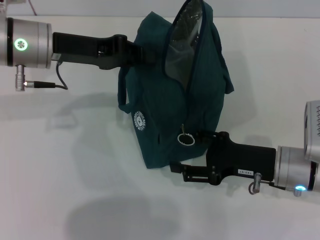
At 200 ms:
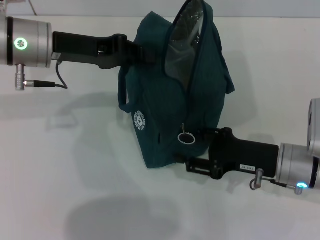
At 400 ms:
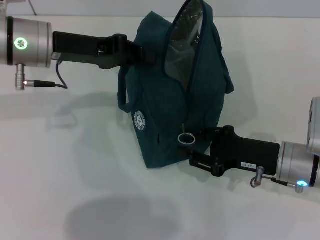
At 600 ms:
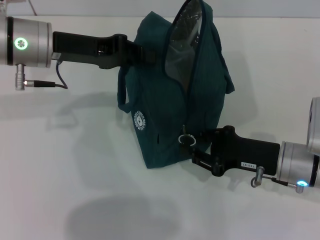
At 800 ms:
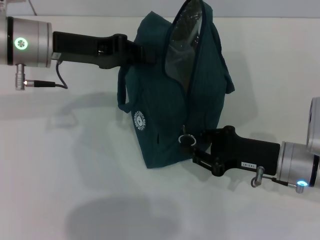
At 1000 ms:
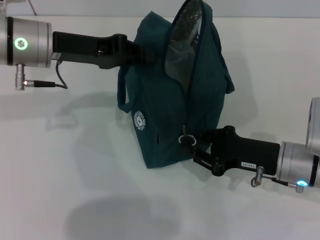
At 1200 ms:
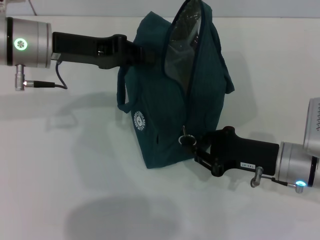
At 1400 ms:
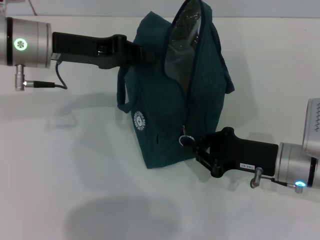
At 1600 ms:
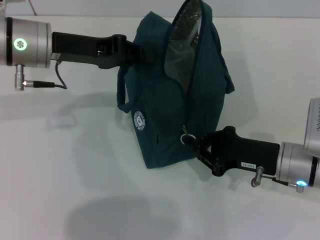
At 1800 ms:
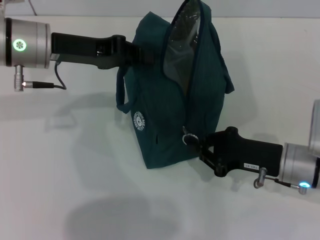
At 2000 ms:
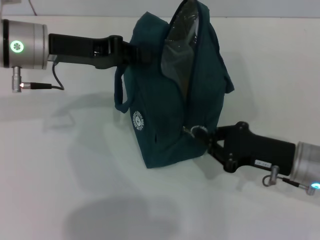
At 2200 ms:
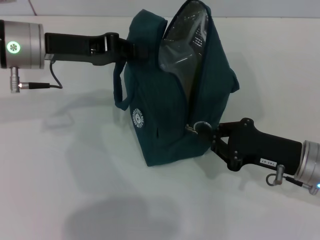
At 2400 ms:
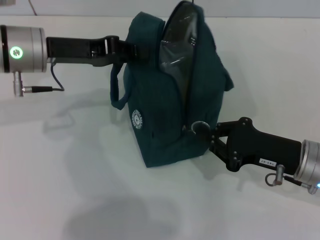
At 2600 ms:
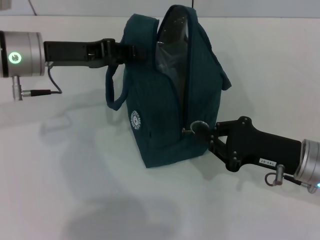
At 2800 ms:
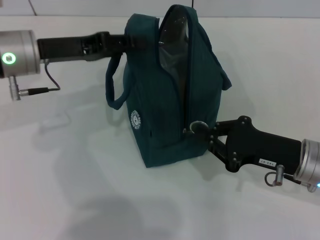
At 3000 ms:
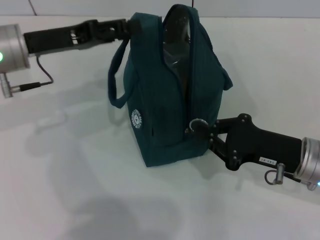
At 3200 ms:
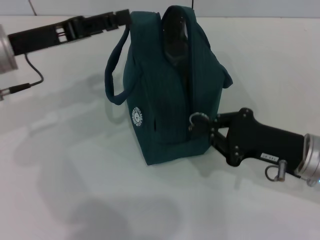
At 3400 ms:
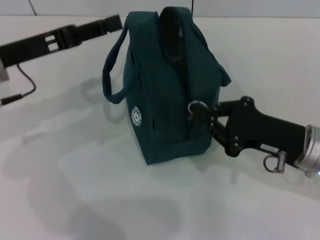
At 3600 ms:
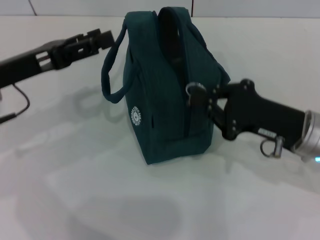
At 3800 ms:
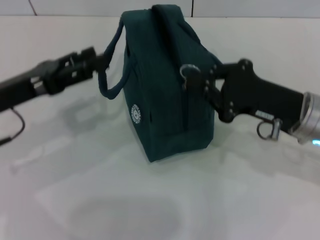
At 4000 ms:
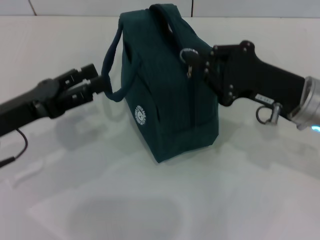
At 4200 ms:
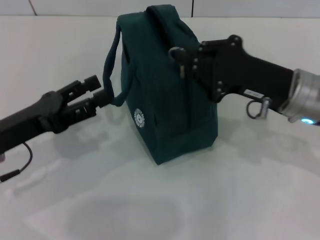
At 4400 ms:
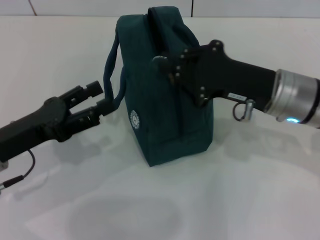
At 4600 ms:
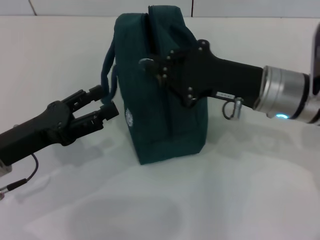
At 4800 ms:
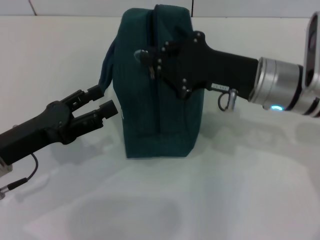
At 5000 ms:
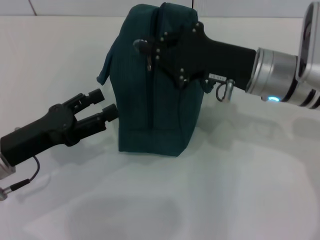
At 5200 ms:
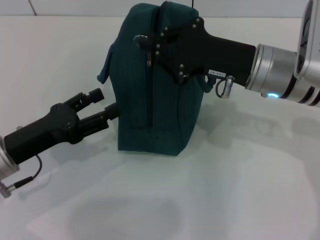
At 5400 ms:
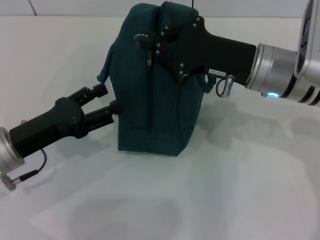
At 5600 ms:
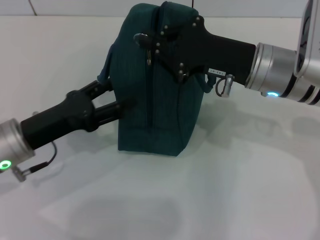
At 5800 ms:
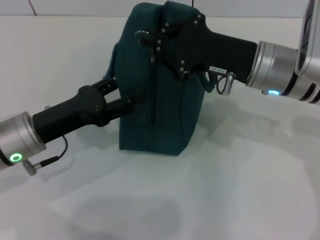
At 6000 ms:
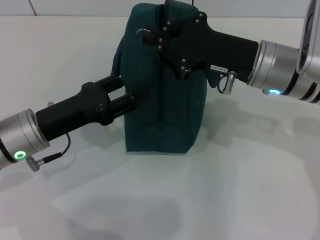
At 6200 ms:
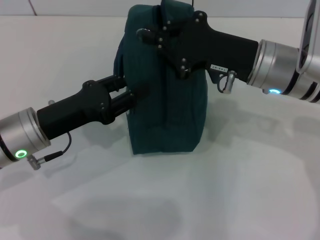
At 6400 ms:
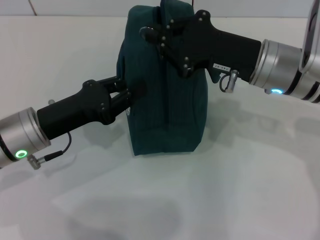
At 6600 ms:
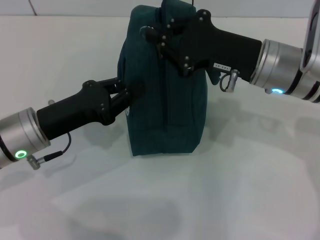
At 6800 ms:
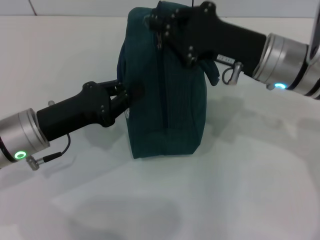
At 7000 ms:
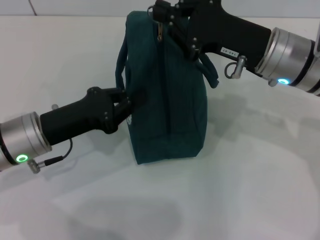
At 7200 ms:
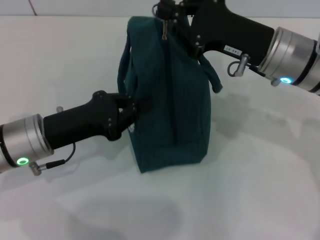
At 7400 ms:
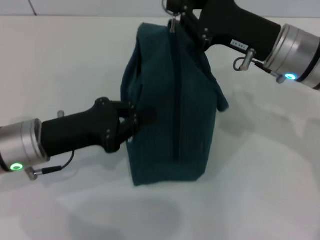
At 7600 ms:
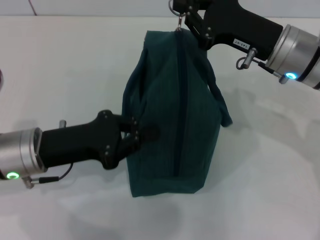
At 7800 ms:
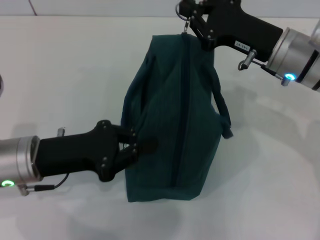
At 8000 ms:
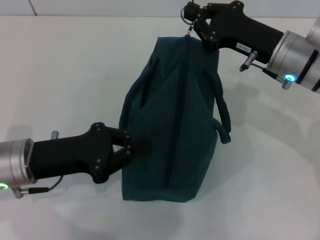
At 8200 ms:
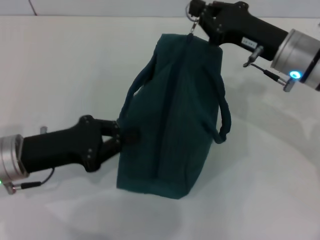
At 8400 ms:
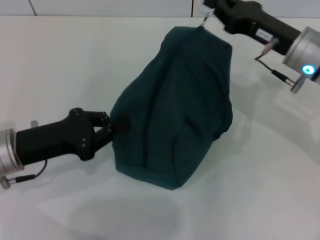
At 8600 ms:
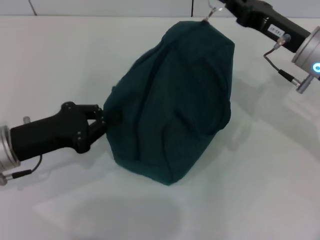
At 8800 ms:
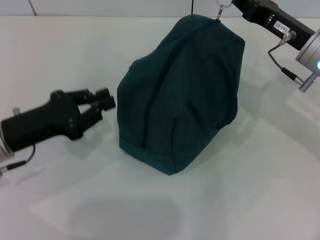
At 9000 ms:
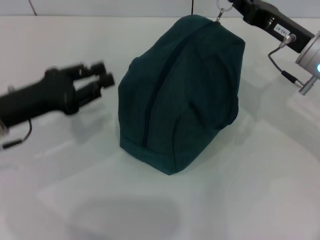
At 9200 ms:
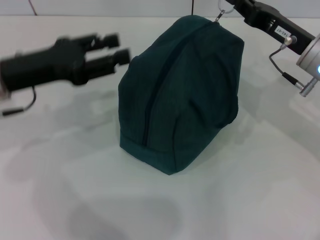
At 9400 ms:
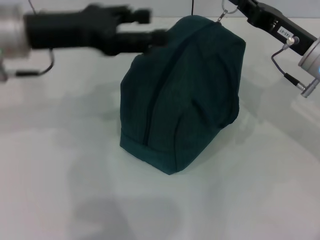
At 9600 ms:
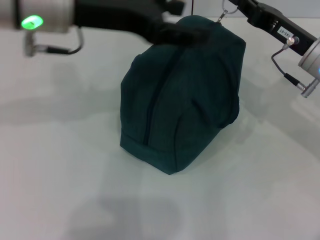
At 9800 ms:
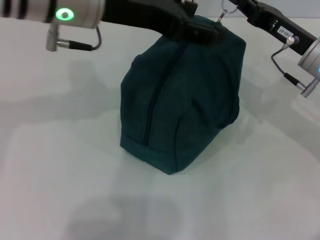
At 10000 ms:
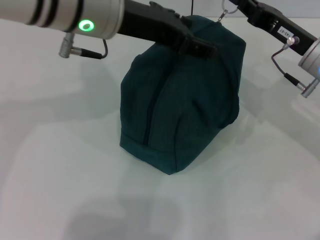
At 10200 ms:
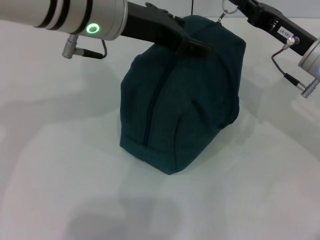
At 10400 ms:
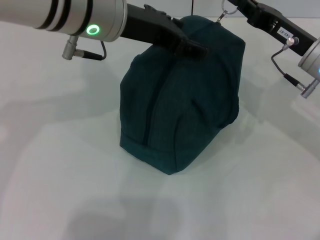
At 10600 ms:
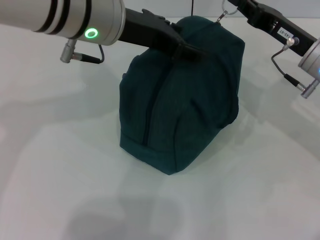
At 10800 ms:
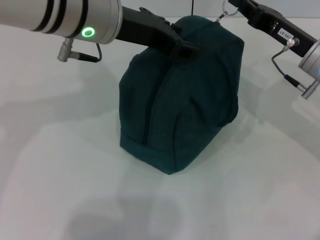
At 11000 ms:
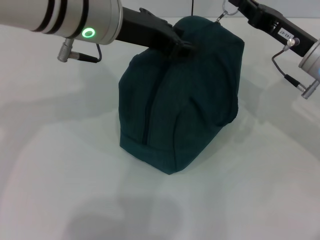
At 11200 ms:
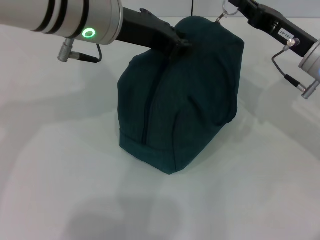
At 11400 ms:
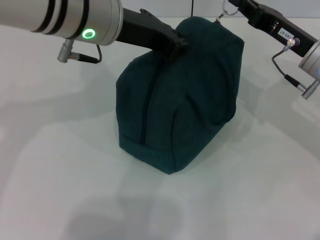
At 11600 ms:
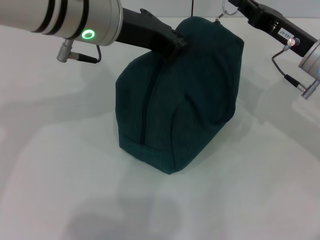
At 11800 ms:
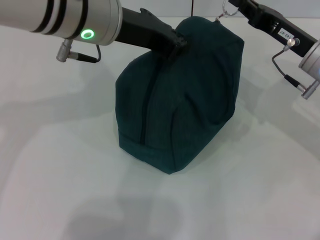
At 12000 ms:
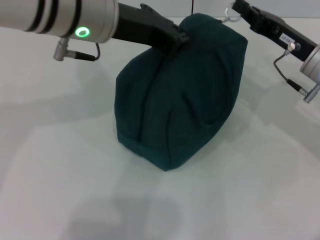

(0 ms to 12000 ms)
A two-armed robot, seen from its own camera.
Step, 0 ms - 2800 ms: Hold the lunch bag with your left hand.
0 ms - 1600 ms: The right gripper closes.
1600 ms - 3000 ms: The left gripper opens.
3000 ms - 4400 ms: The right gripper travels upward, forward and to the left by roughly 10 cm; the left gripper moves backward and downward, approximately 15 cm, and opens.
4400 ms - 6000 ms: The left gripper moves about 5 cm.
6000 ms - 7600 ms: The left gripper closes.
7600 ms - 9000 ms: The left gripper changes place by about 5 cm, while the right gripper changes place by some 5 cm.
9000 ms - 10400 ms: The left gripper is displaced to the right, upward and forward by approximately 25 cm, and opens its fingers.
10400 ms - 12000 ms: The left gripper closes its fingers.

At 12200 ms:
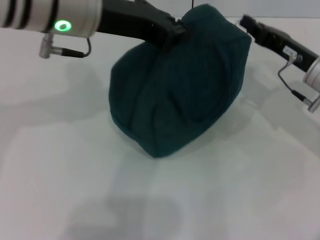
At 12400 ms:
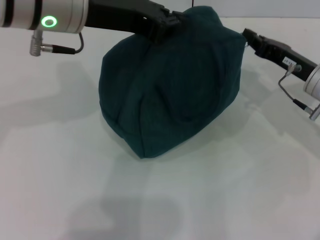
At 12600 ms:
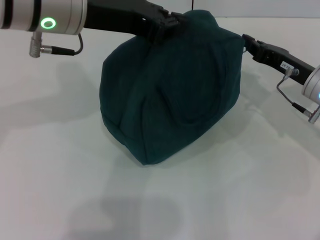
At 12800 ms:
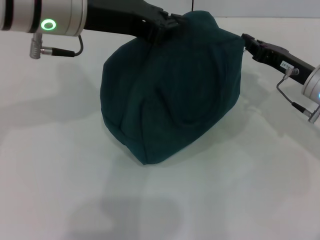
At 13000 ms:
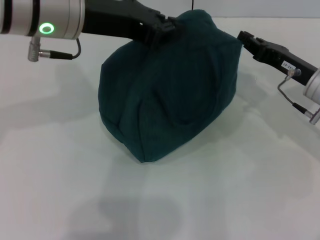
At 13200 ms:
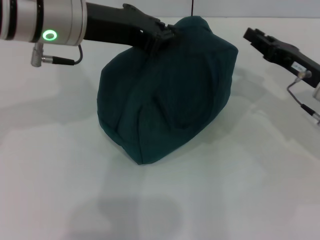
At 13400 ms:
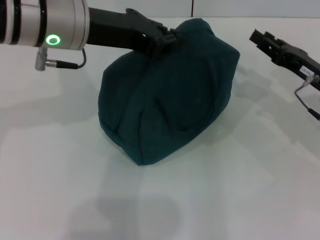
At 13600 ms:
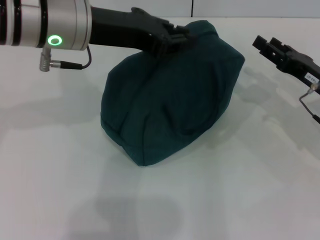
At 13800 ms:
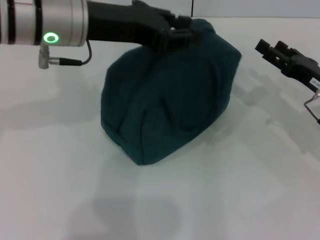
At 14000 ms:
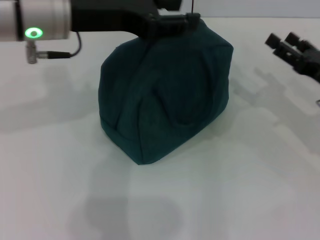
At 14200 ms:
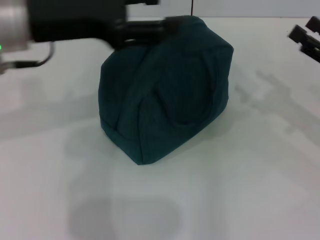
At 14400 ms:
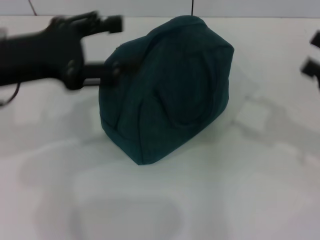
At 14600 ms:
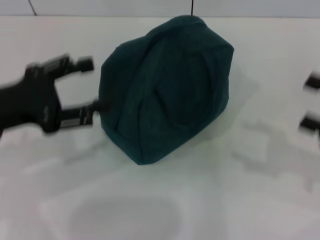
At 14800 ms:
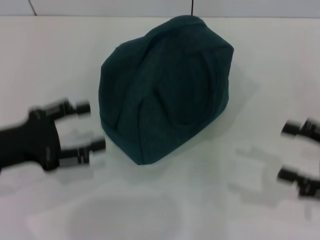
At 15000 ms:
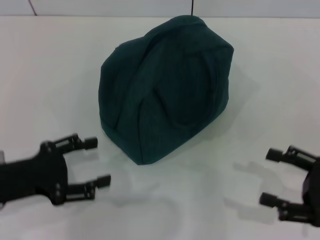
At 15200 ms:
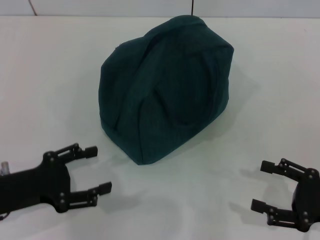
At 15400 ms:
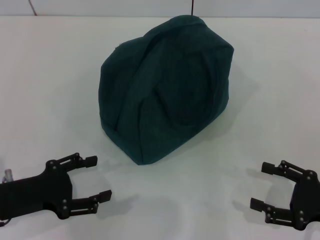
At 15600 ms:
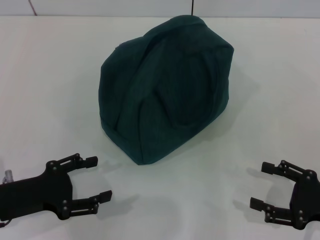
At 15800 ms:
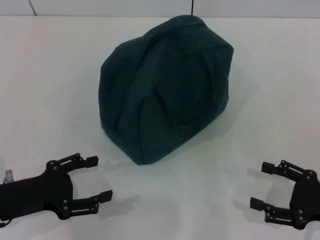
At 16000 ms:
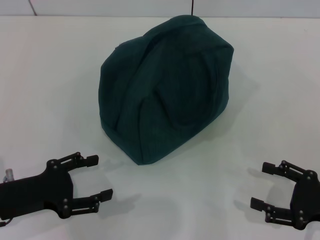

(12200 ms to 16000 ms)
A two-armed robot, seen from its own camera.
Step, 13200 ms - 13800 ms: Hold the lunch bag with your left hand.
12200 ms - 13400 ms: The grippers stay close to where they were, moving slightly.
13400 ms - 14800 ms: The right gripper travels backward and to the right by roughly 15 cm, and opens its fingers. The left gripper goes about 20 cm to the left, backward and downward, and opens up.
14800 ms - 16000 ms: Both grippers travel together downward, roughly 5 cm.
